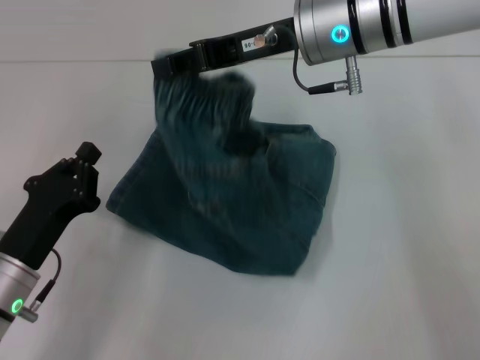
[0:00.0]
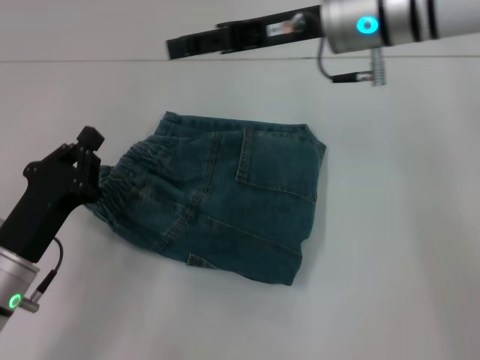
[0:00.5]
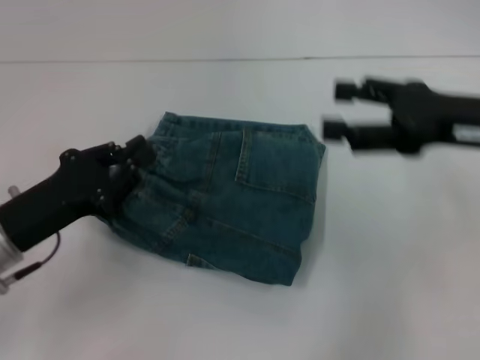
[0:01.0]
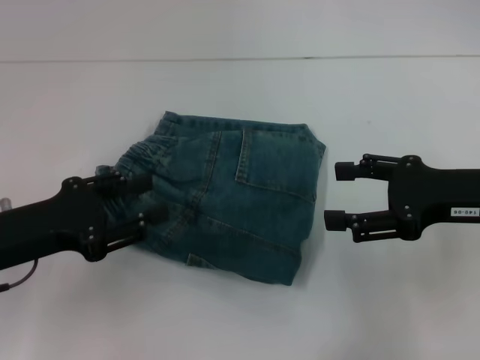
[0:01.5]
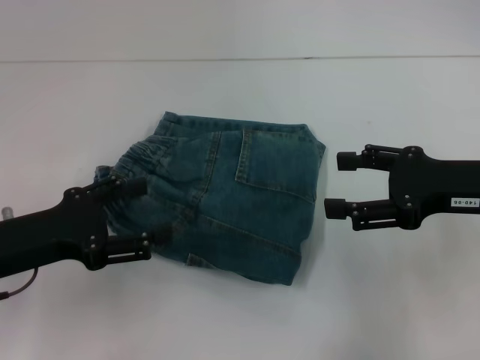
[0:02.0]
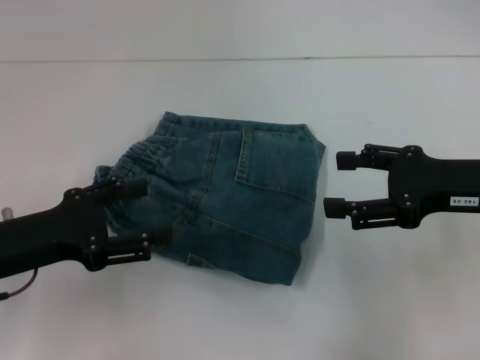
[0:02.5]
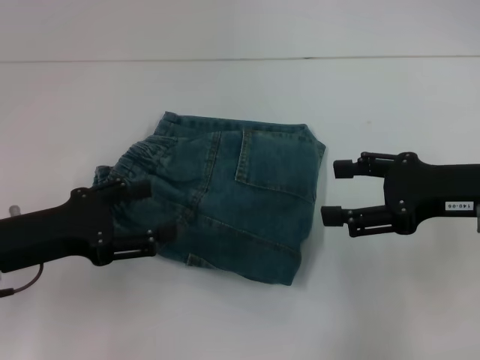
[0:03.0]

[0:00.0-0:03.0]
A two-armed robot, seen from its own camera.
0:00.0 to 0:01.5: The left gripper moves upward, approximately 10 cm, and opens; the right gripper shifts some 25 cm to the right, backward and downward, and opens up.
0:01.5 to 0:03.0: The left gripper opens up.

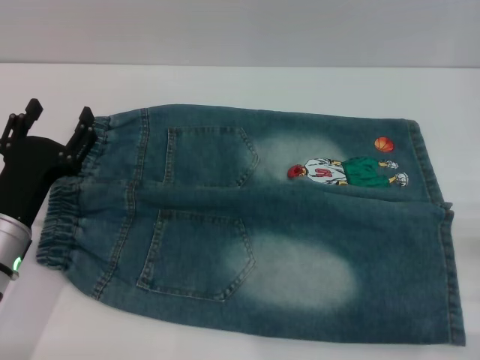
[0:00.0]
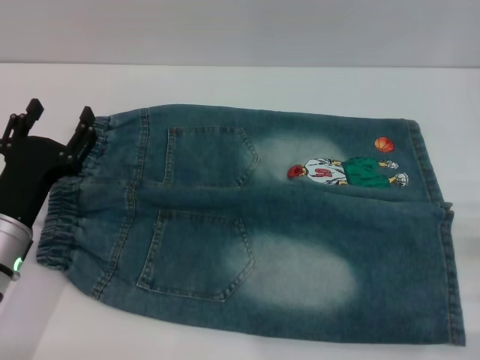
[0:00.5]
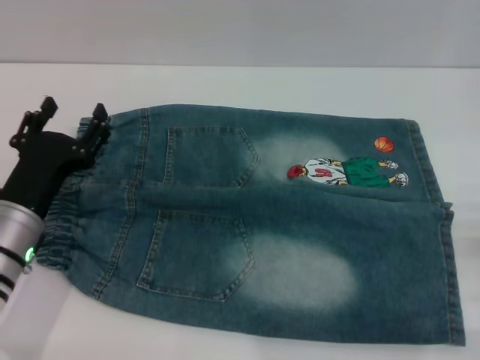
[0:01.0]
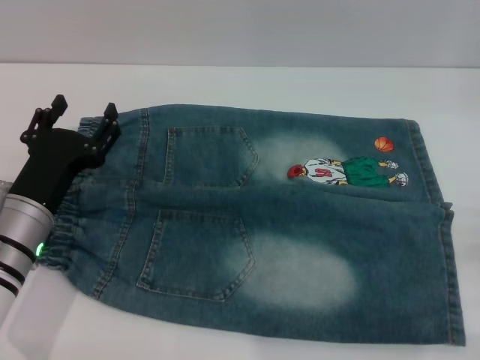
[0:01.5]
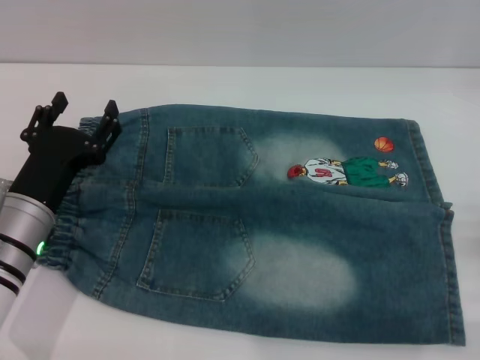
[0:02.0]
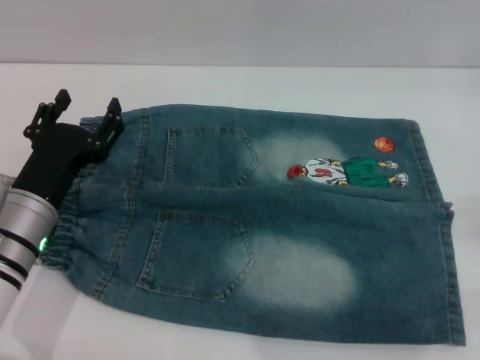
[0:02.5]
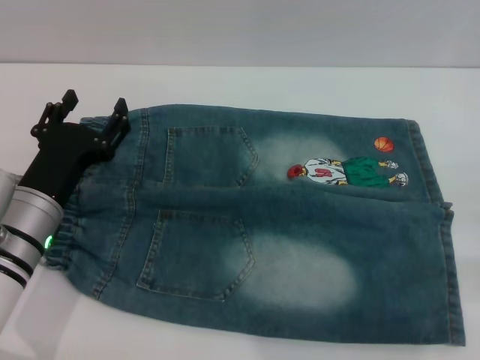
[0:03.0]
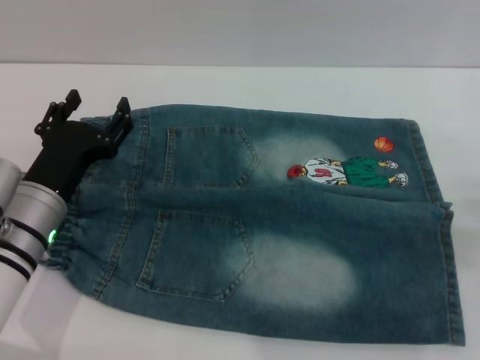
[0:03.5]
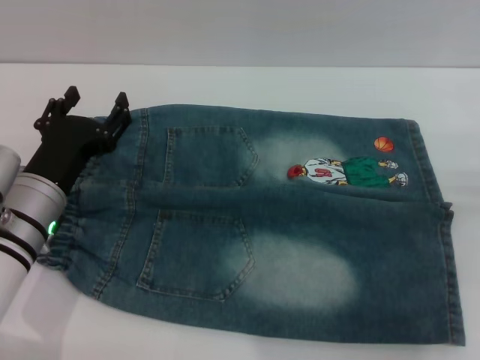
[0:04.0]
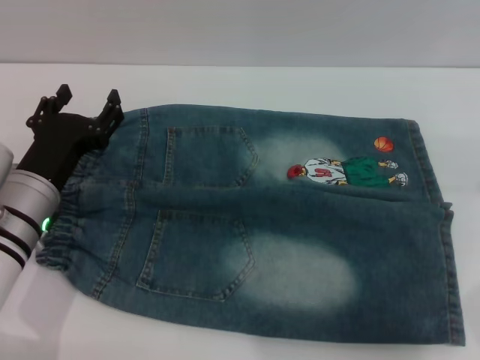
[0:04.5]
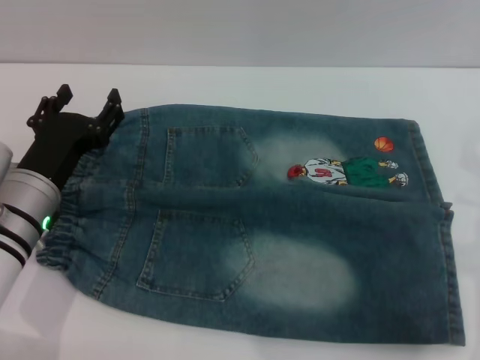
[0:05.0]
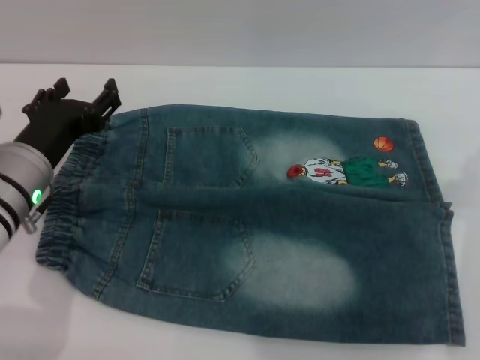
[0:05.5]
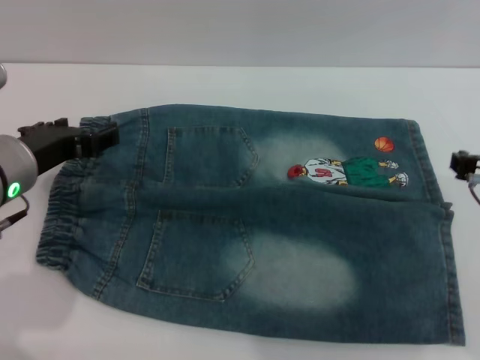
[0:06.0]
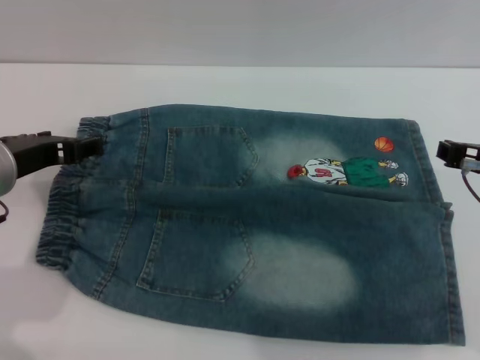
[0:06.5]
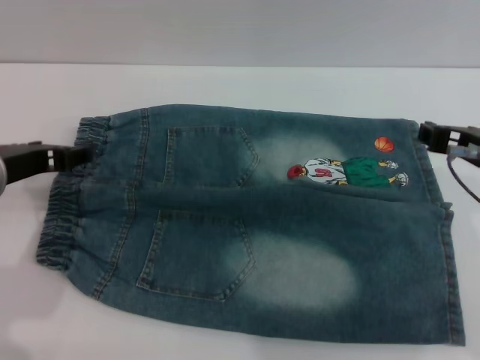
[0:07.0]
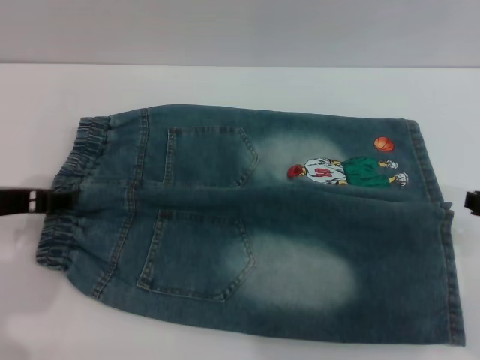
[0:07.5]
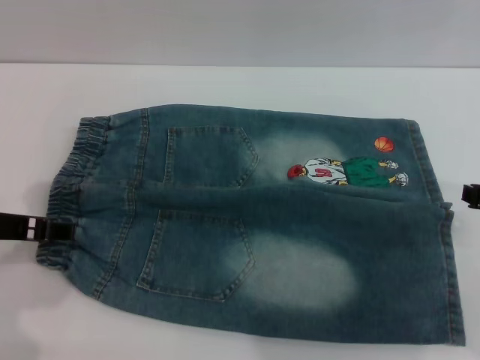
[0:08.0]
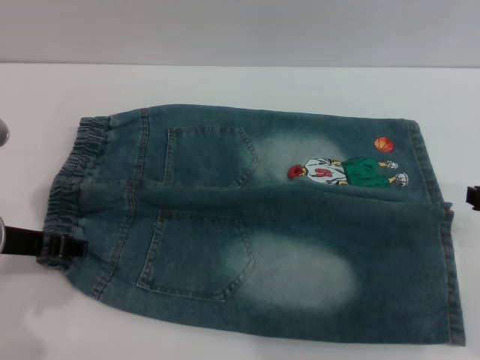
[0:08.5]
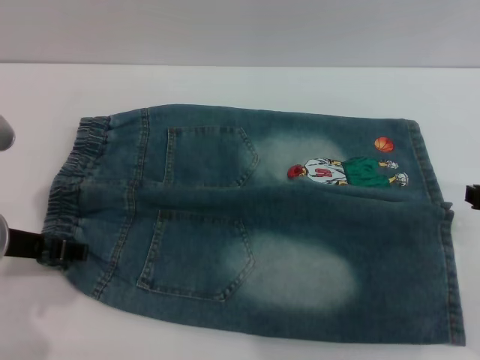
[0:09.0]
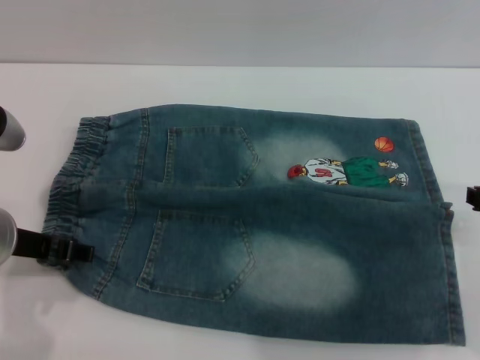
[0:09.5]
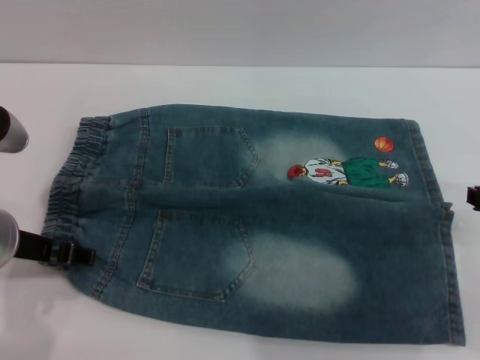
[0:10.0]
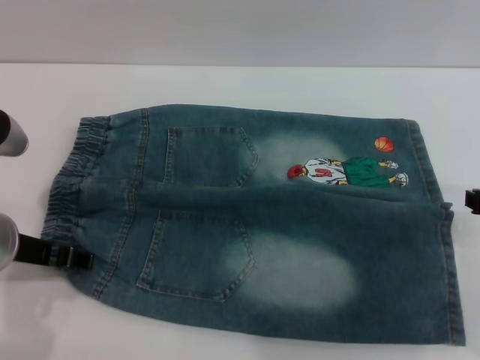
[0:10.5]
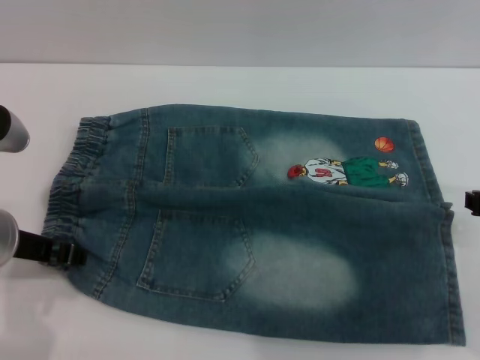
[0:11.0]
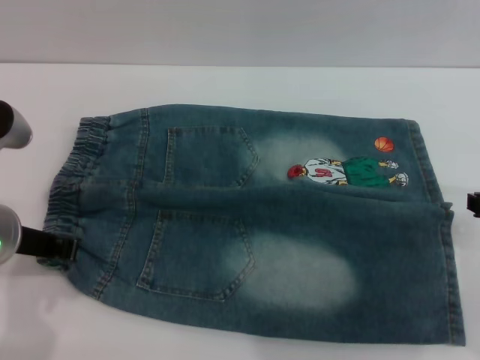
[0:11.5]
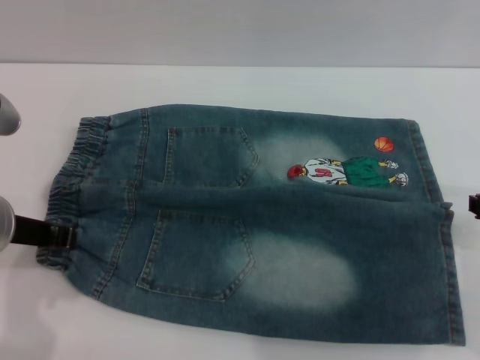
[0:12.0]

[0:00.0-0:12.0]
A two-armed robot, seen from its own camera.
0:00.0 to 0:02.0: There are only small adjustments of the grippers.
0:04.0 to 0:06.0: The right gripper travels to the left by approximately 10 cm, while the left gripper shifts roughly 10 cm upward.
0:08.0 to 0:10.0: The grippers make only small movements.
0:10.0 to 0:12.0: The left gripper closes its fingers.

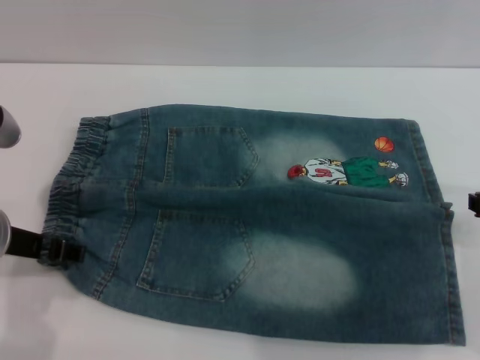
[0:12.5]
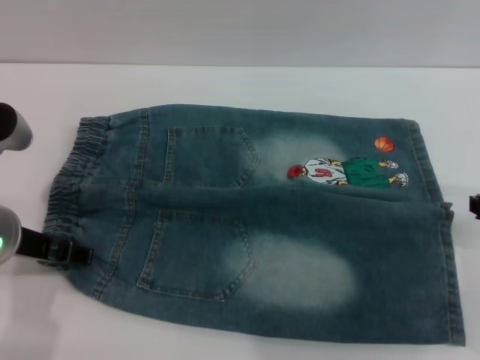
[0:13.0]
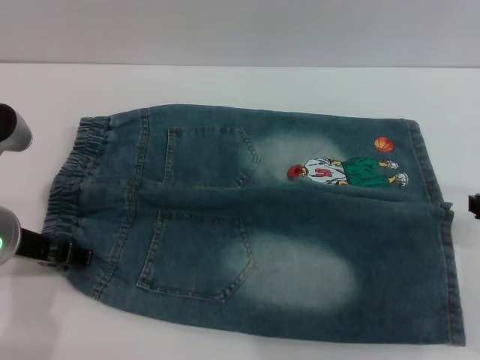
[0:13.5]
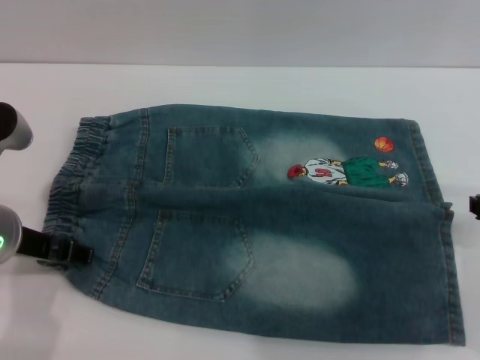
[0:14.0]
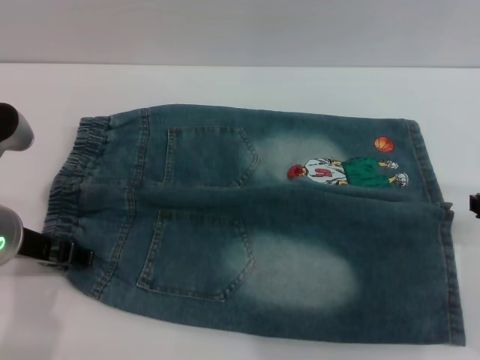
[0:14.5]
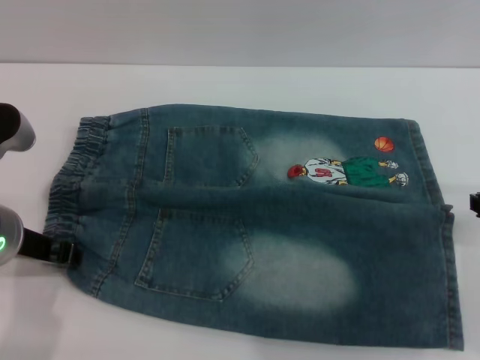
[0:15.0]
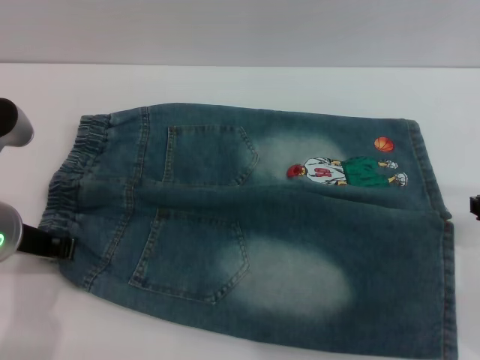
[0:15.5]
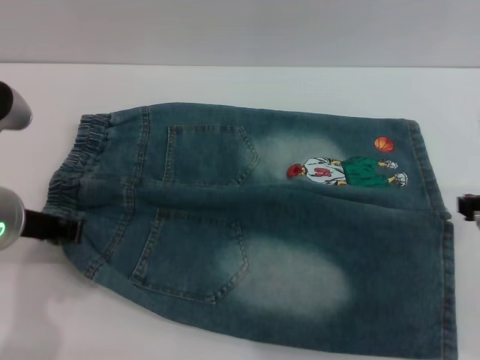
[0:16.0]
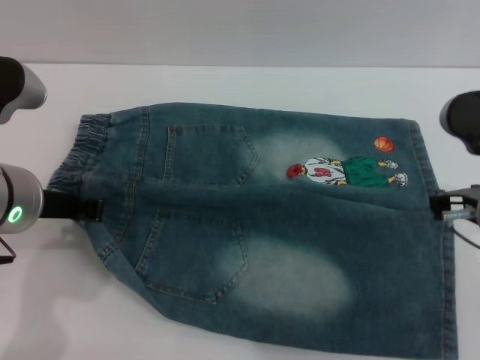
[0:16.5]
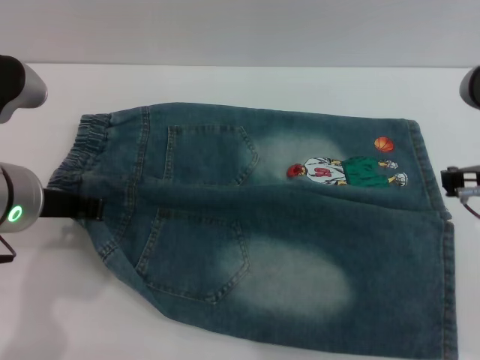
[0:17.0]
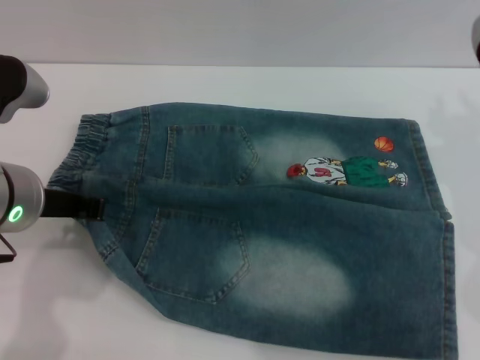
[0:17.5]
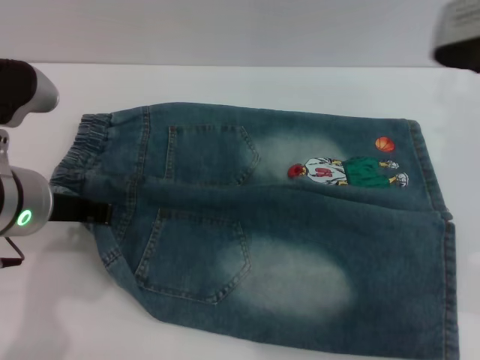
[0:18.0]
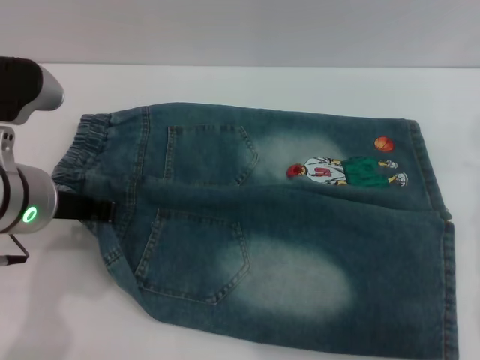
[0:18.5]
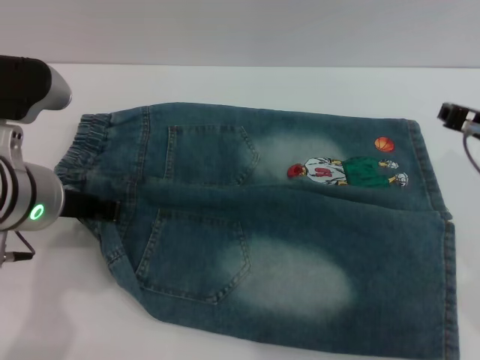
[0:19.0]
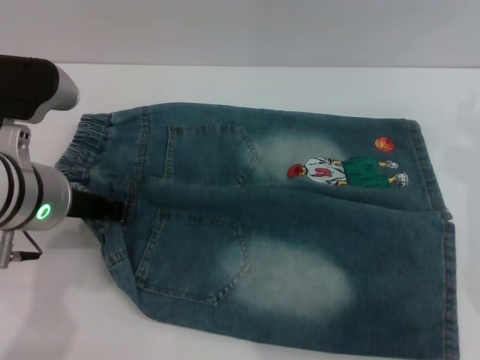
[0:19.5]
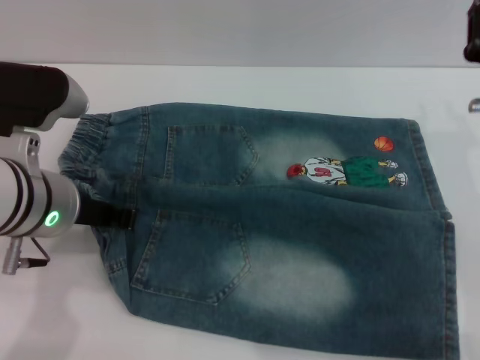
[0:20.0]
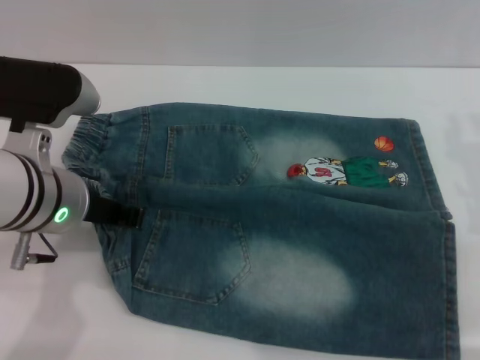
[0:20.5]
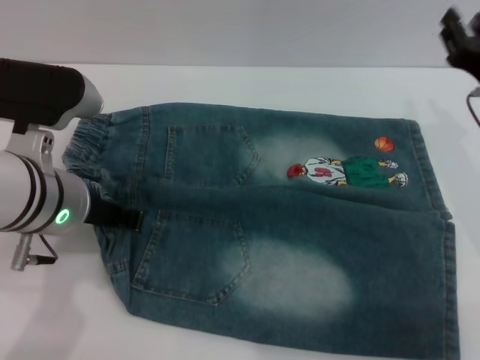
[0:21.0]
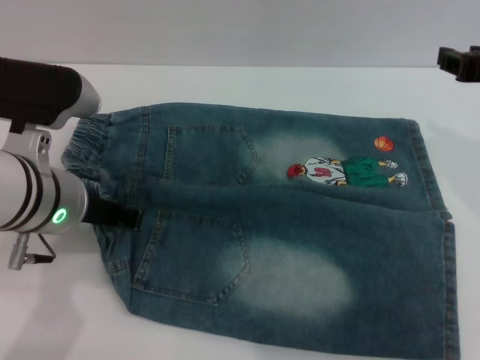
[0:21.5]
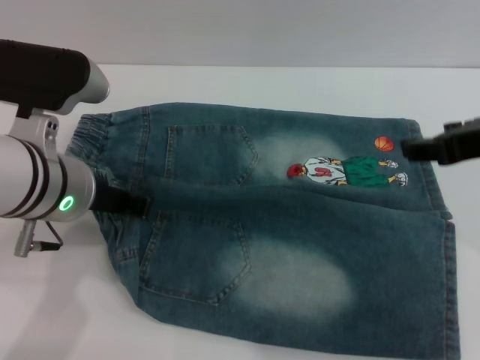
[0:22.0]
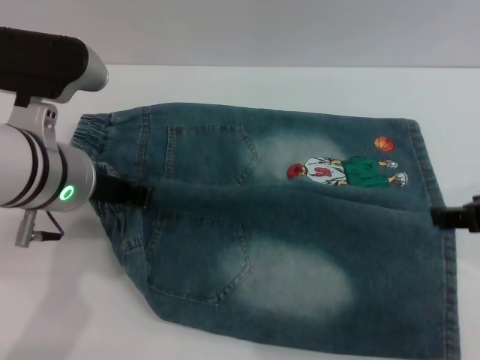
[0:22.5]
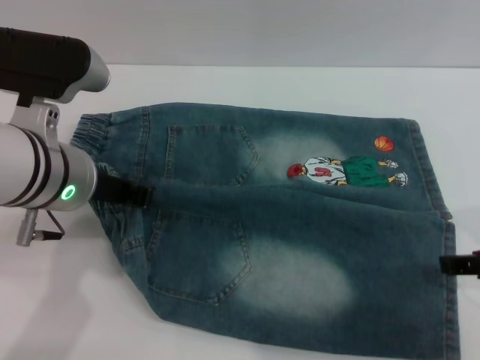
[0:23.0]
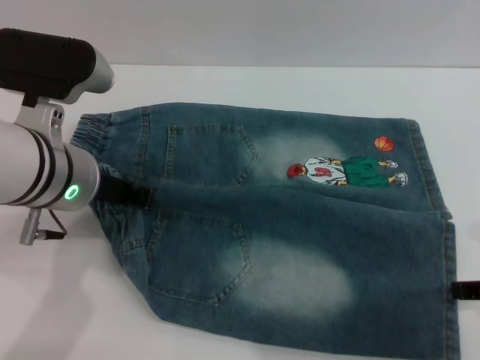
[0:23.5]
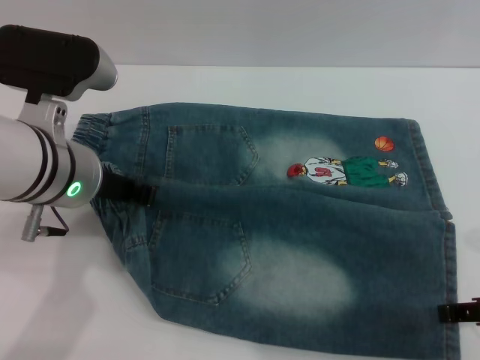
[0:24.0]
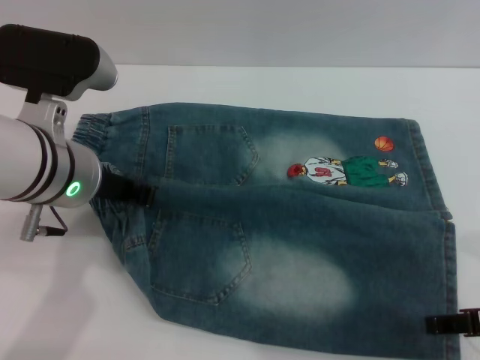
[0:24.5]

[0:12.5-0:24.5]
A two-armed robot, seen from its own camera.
0:12.5 to 0:14.5: The grippers stay close to where they were, moving slightly.
0:14.5 to 0:16.5: The left gripper closes.
0:16.5 to 0:18.5: The right gripper is displaced to the right by some 5 cm.
0:20.5 to 0:22.5: The right gripper travels upward by some 10 cm.
0:22.5 to 0:24.5: The right gripper shifts some 5 cm downward.
